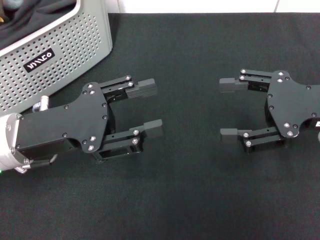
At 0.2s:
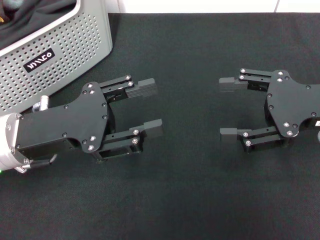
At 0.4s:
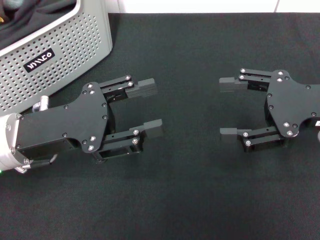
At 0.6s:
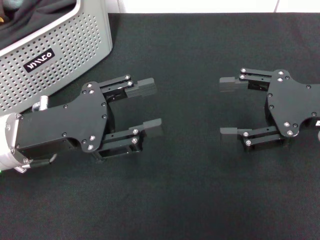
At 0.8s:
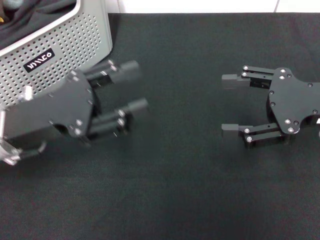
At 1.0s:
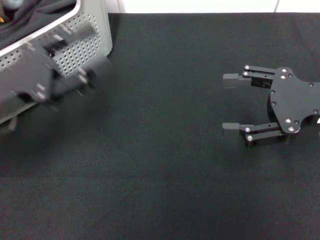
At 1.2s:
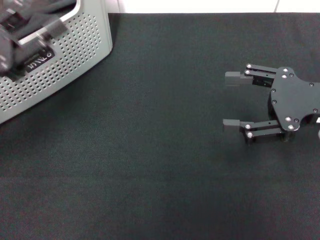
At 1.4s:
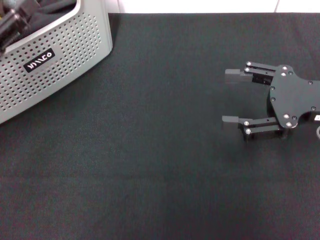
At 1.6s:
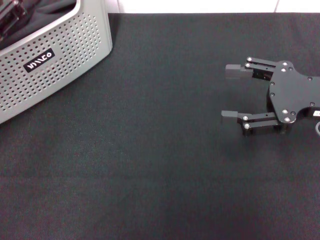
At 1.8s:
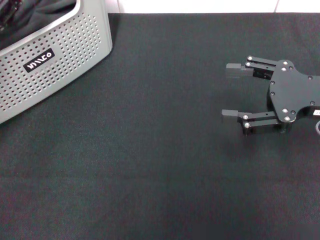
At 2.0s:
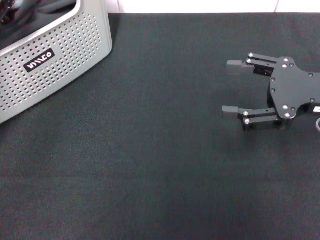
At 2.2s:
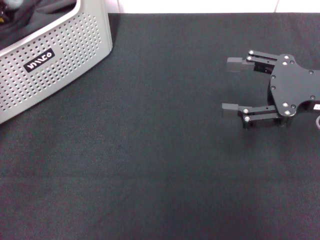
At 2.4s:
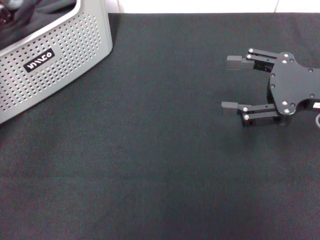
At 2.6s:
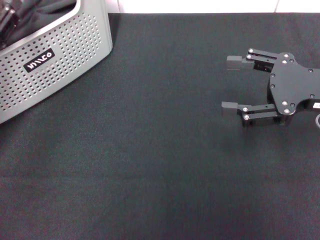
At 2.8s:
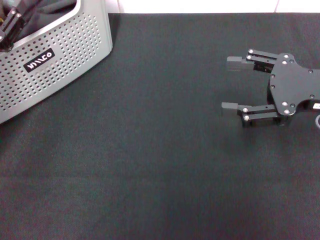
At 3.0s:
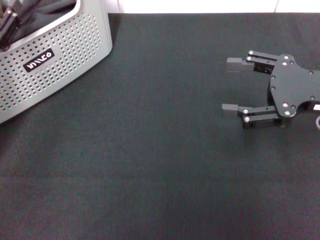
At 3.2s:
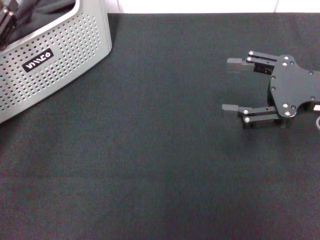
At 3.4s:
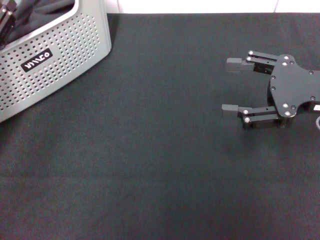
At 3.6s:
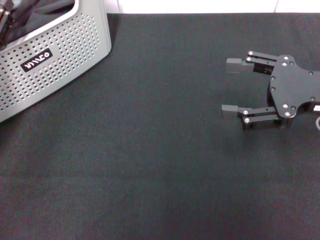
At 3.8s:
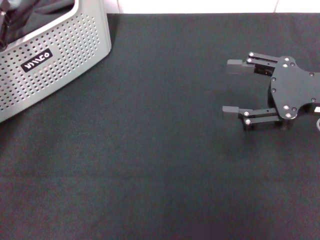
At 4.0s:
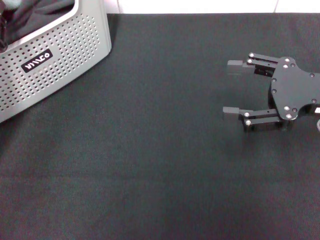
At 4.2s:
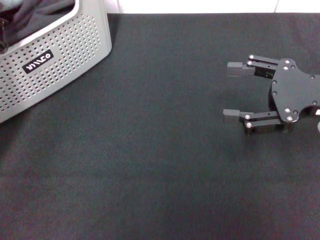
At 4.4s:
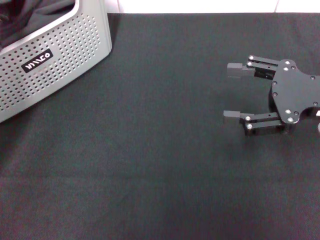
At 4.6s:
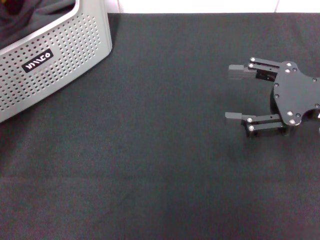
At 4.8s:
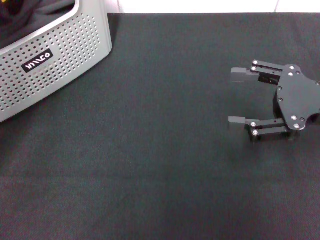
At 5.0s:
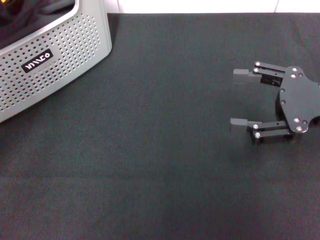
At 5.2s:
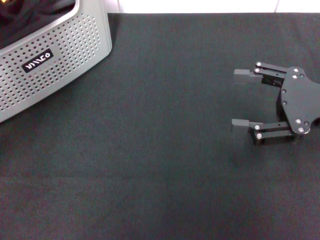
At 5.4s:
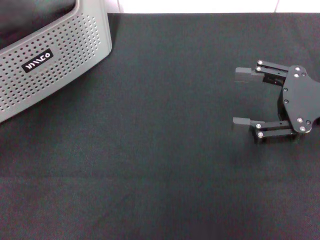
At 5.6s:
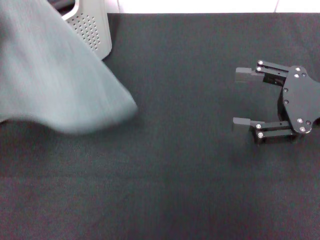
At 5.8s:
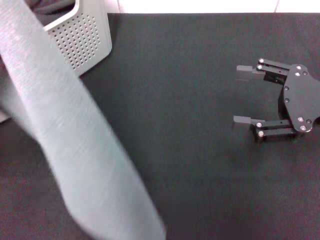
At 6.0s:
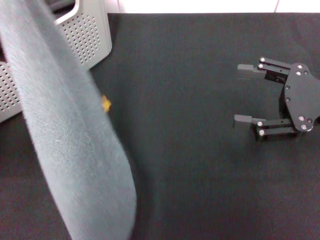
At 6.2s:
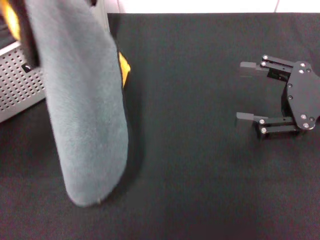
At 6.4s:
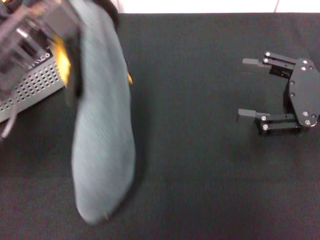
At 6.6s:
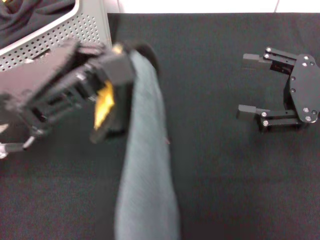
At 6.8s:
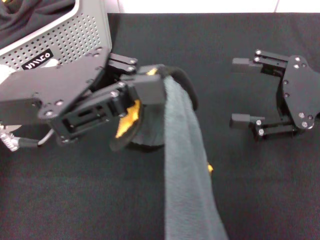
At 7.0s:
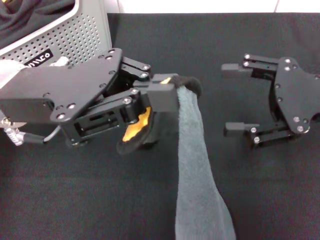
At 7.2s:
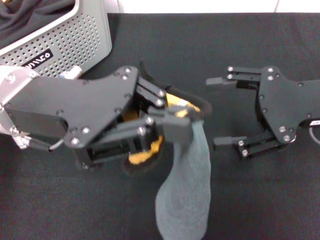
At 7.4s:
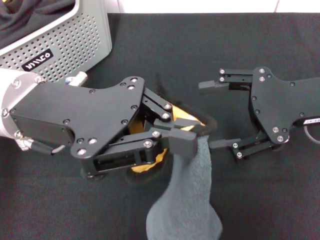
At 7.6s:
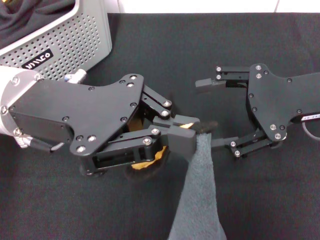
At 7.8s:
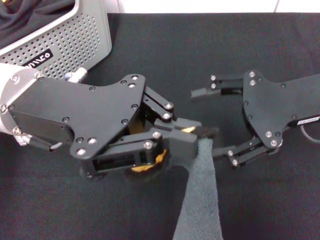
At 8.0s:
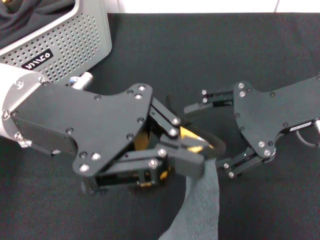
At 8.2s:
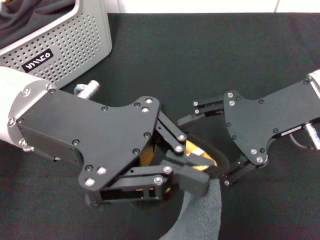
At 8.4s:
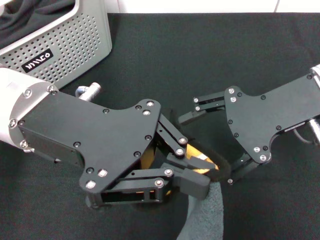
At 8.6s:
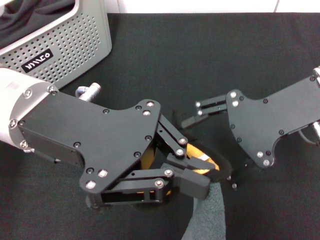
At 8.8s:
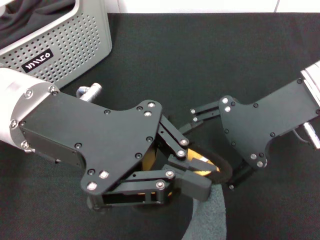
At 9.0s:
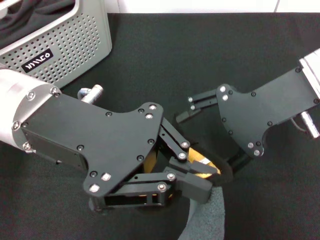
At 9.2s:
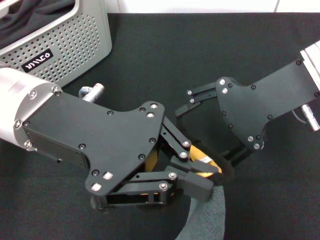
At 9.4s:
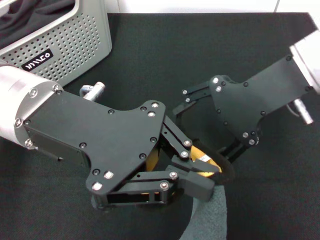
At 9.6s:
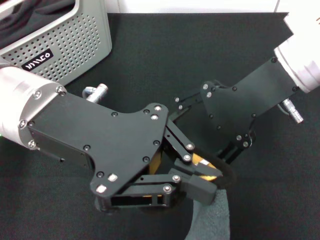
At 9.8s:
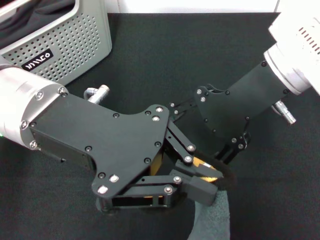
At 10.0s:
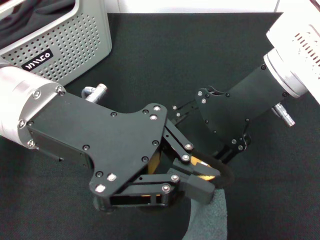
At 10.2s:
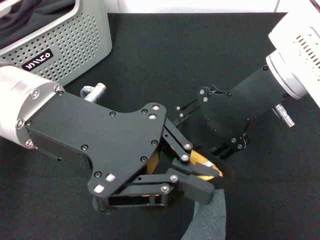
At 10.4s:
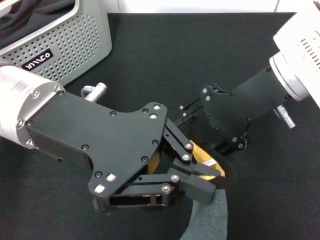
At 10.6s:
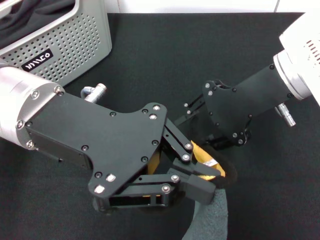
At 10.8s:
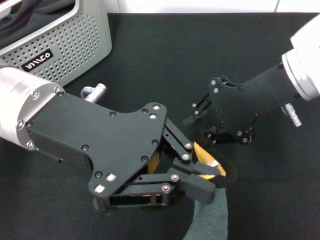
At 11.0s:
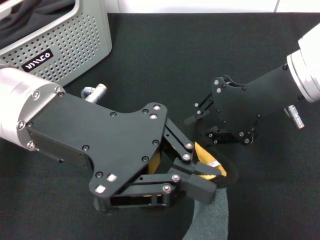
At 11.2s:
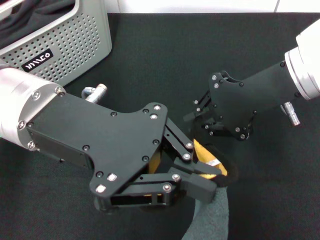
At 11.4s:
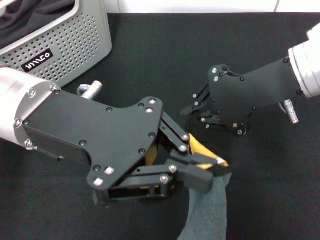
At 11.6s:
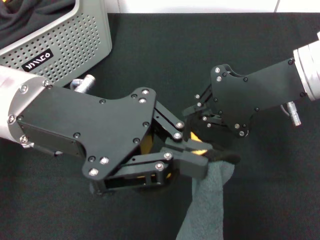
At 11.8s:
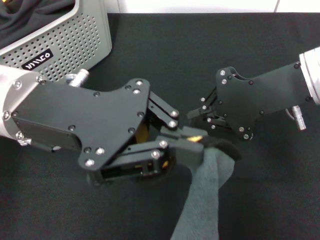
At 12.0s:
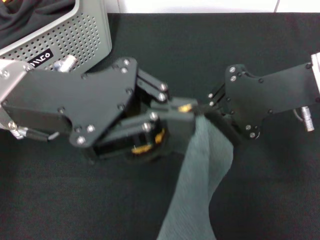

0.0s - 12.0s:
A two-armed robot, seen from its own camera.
Task of the whole recording: pick up the towel from the storage box and lay it flat on the black tablecloth.
Step, 0.0s - 4.2s: Pick up a towel with the left gripper.
Step, 4.6s - 11.6s: Spread the towel flat with the left gripper.
0.0s - 1.6s: The left gripper goes approximately 10 cm to the left.
1.6s - 3.0s: There are only small adjustments of the grippers.
3.0s - 4.4s: The left gripper closes up.
4.4s - 6.0s: The left gripper heads upward, covering roughly 10 cm.
6.0s - 7.6s: The left gripper travels to the right by approximately 10 cm, while the right gripper shifts by roughly 5 cm.
7.6s - 9.0s: The right gripper heads to the left, covering roughly 5 cm.
9.0s - 10.4s: The grippers stay close to where they were, moving slightly.
10.4s - 12.0s: The right gripper closes its fingers.

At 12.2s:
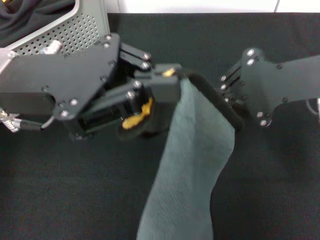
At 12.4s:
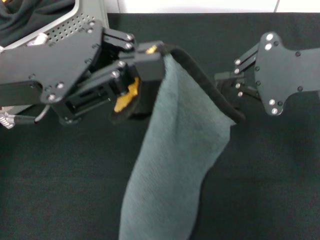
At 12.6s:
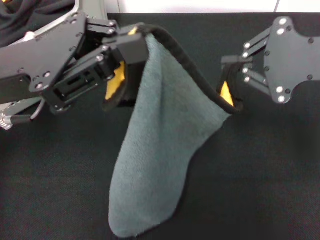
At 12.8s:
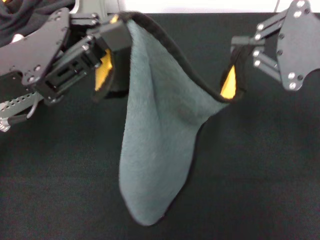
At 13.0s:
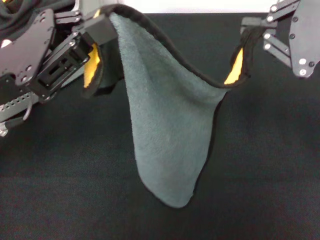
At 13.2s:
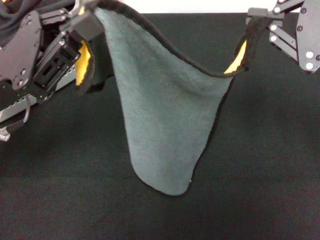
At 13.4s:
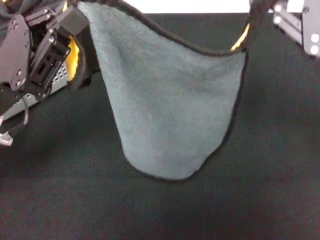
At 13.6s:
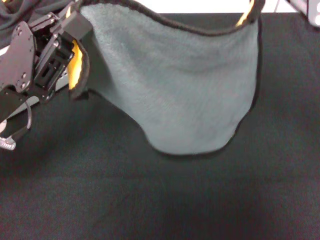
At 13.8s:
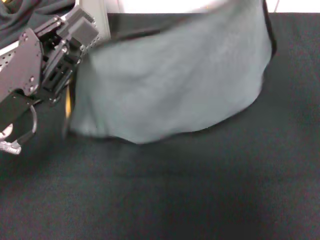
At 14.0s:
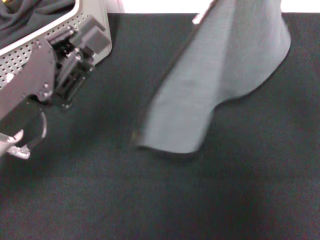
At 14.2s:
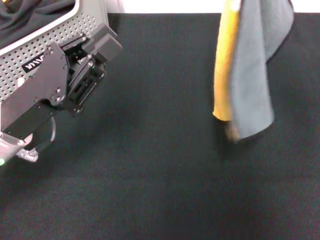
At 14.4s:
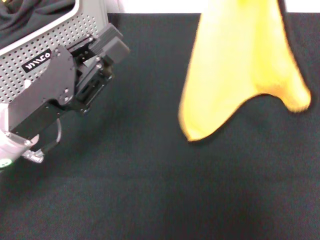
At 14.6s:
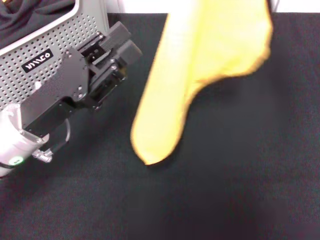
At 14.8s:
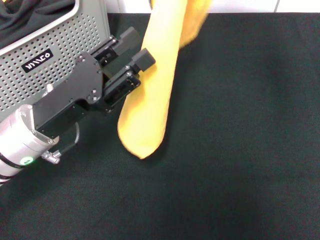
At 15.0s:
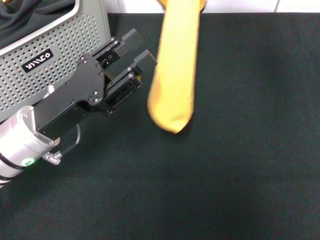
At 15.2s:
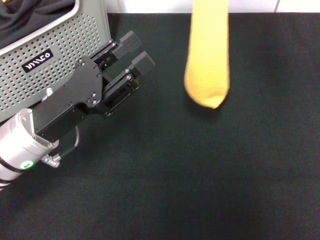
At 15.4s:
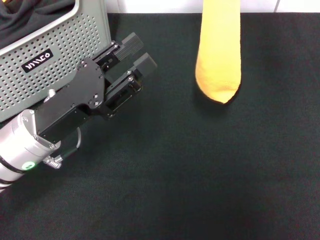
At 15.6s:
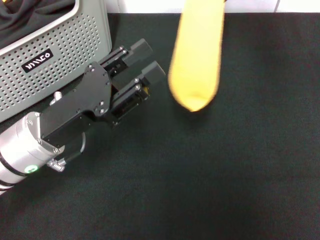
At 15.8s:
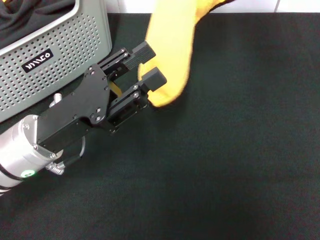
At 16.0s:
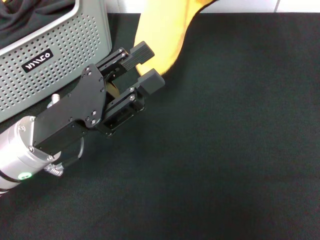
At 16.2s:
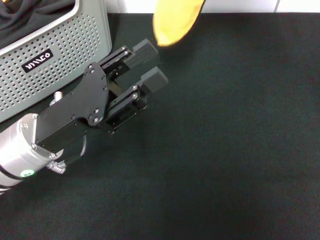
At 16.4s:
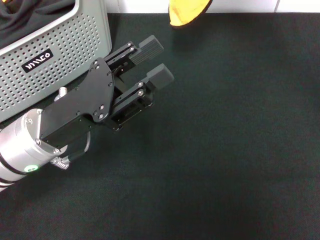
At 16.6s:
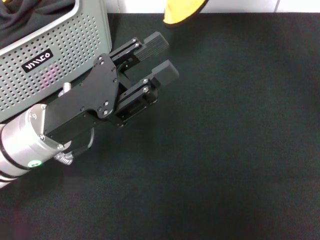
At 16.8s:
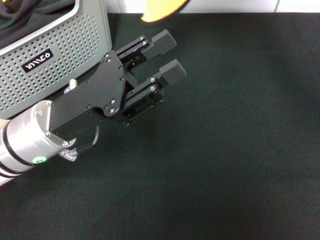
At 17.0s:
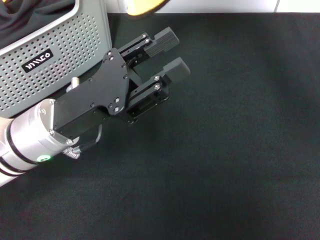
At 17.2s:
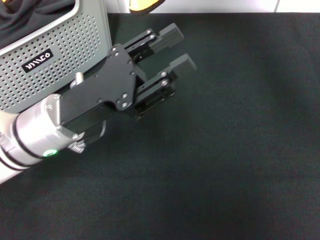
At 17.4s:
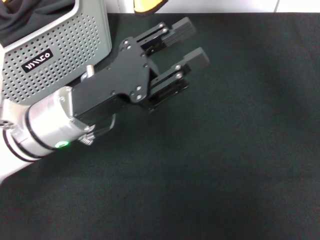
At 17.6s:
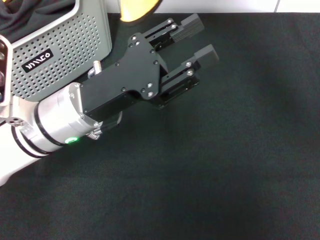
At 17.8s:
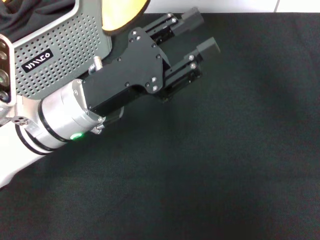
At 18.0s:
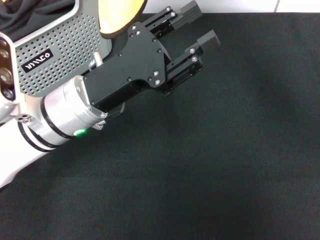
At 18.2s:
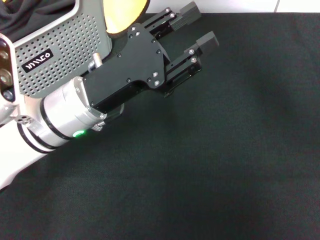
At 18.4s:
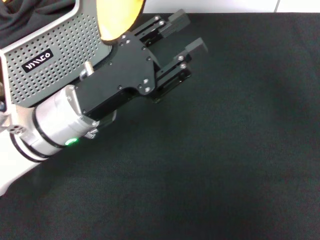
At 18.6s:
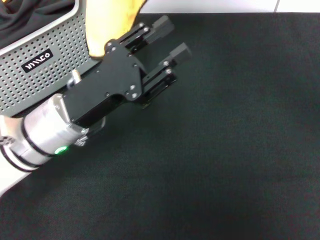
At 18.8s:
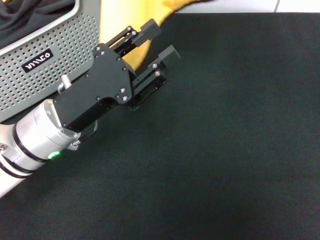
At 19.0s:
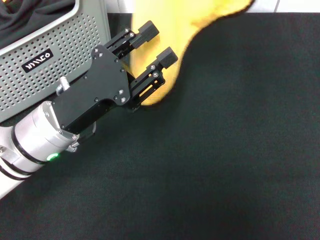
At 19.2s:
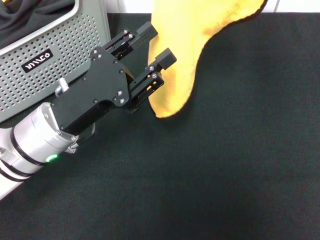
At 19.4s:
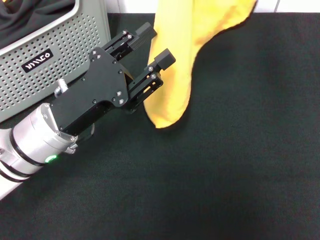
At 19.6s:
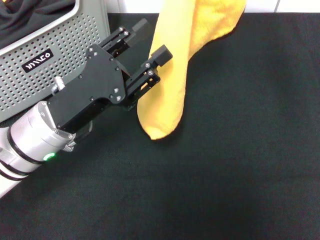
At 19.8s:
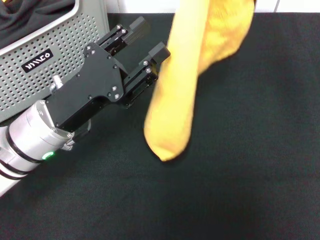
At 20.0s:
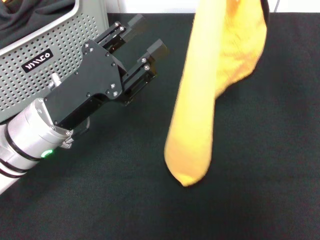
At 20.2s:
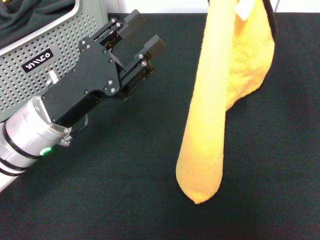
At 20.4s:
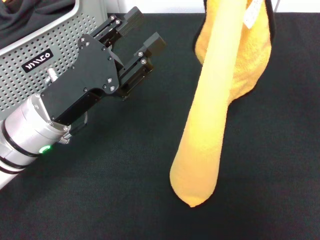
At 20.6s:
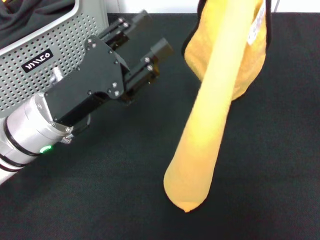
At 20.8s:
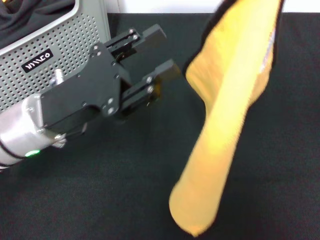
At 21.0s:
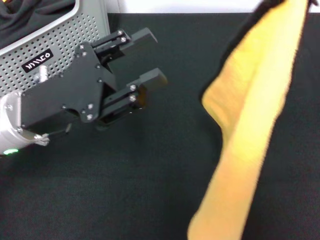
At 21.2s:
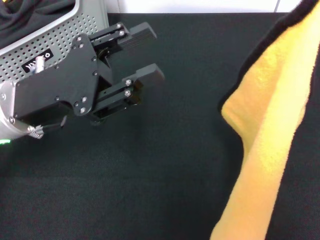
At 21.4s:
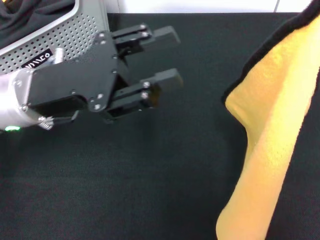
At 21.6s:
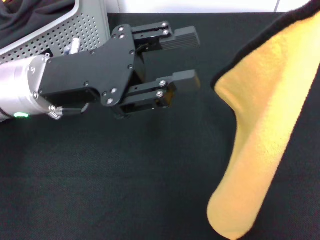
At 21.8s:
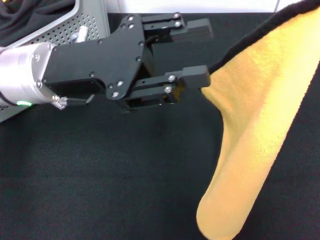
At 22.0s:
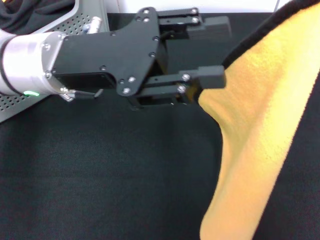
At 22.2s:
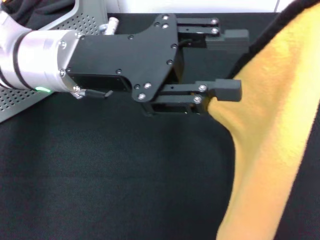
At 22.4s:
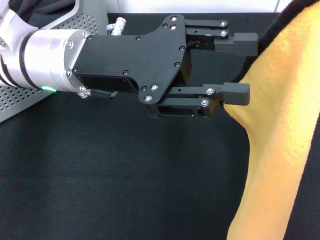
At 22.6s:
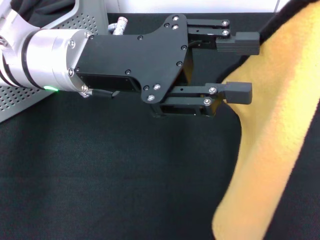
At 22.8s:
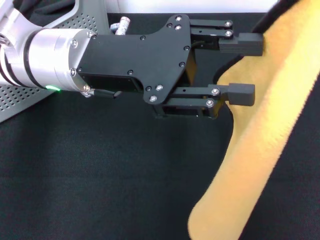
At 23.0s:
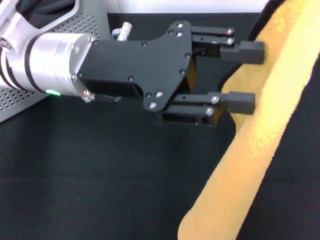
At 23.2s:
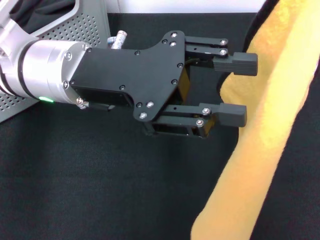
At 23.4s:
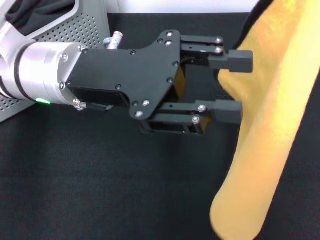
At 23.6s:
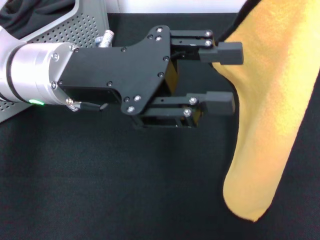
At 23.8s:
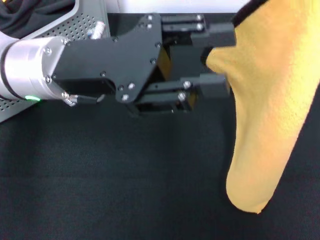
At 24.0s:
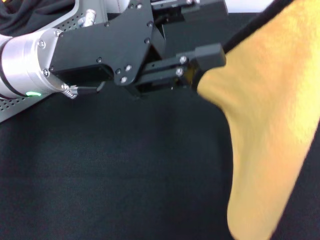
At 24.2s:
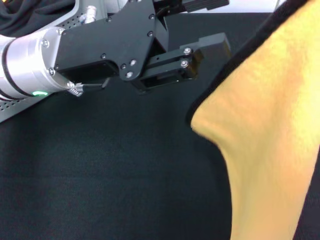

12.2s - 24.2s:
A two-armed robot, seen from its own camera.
Task of the whole recording: pick up the towel from the storage box and lay it flat on the black tablecloth.
12.2s - 13.8s: The right gripper travels upward by roughly 10 cm, while the left gripper moves downward, about 10 cm.
13.8s - 15.2s: The right gripper goes approximately 10 cm upward and to the left. Meanwhile the left gripper opens up.
15.2s - 16.6s: The right gripper heads forward, covering about 5 cm.
16.6s - 18.2s: The left gripper changes place by roughly 5 cm, while the right gripper heads to the left, covering approximately 10 cm.
18.2s - 19.8s: The right gripper is displaced to the right and backward by roughly 15 cm. The left gripper moves about 5 cm.
19.8s - 21.2s: The left gripper changes place by about 5 cm, while the right gripper is displaced to the right and backward by some 10 cm.
21.2s - 22.6s: The right gripper moves forward, some 5 cm. Meanwhile the left gripper moves to the right and upward, approximately 10 cm.
